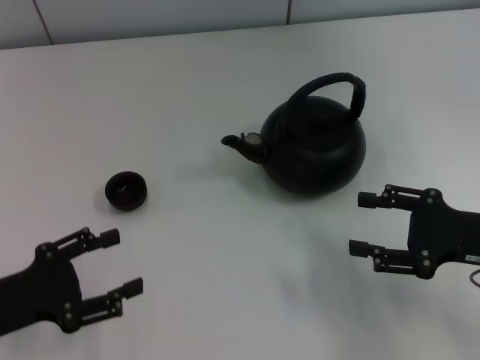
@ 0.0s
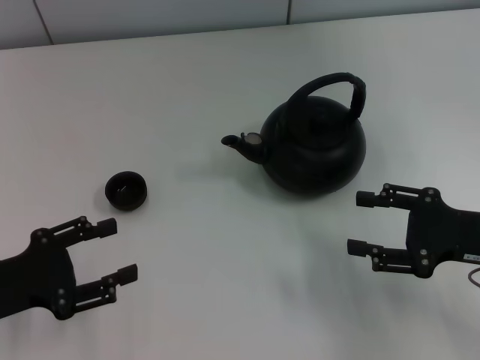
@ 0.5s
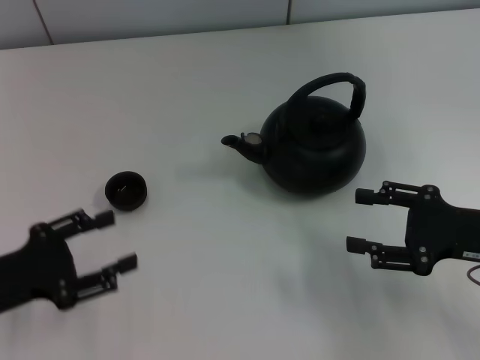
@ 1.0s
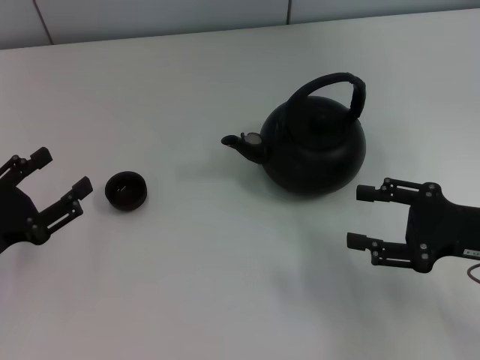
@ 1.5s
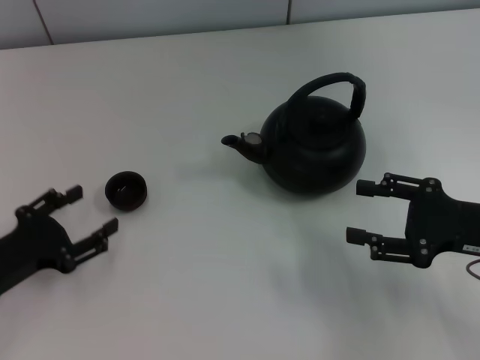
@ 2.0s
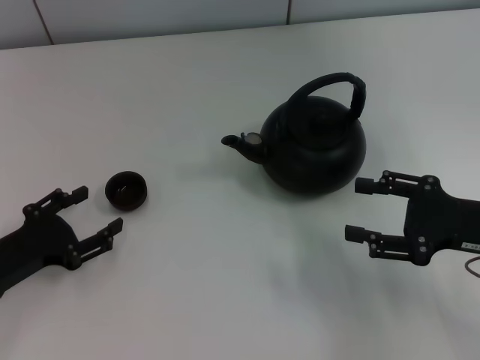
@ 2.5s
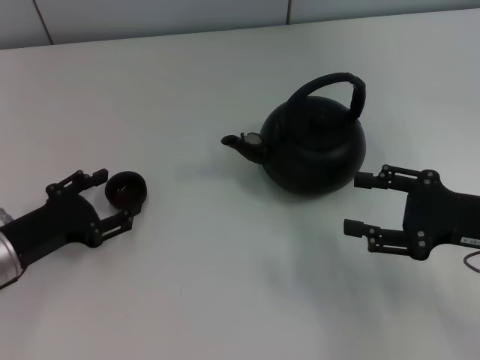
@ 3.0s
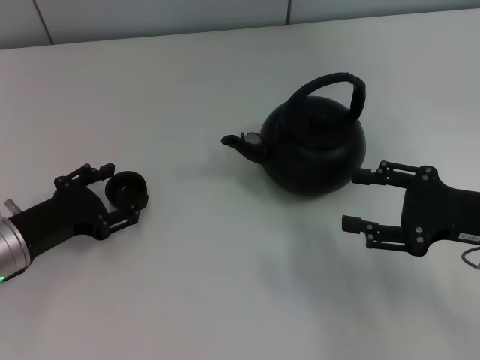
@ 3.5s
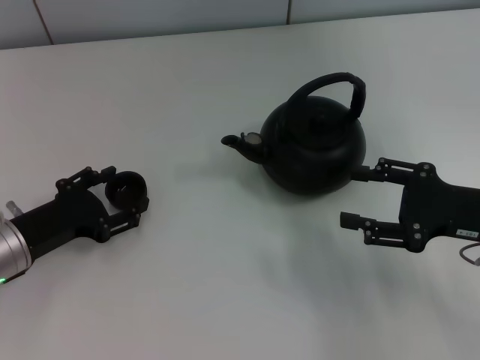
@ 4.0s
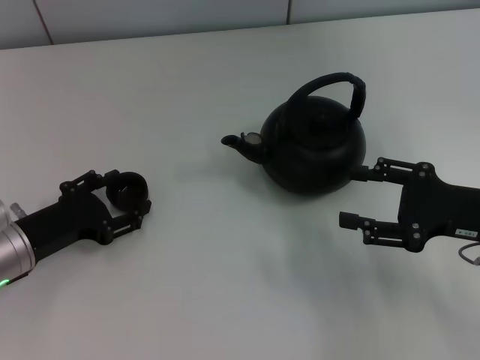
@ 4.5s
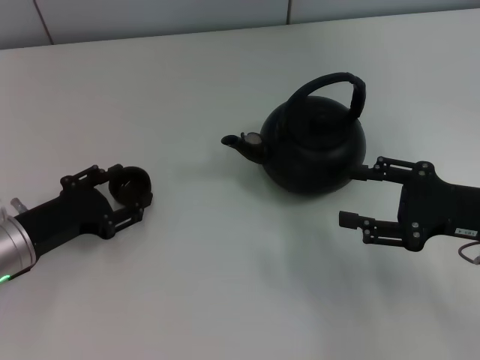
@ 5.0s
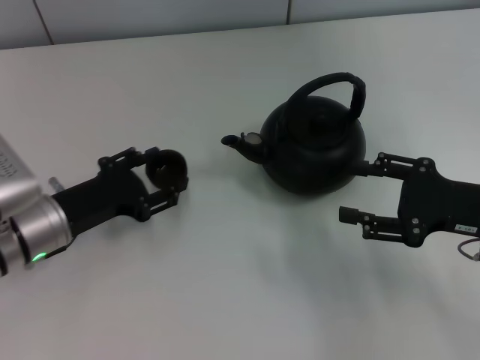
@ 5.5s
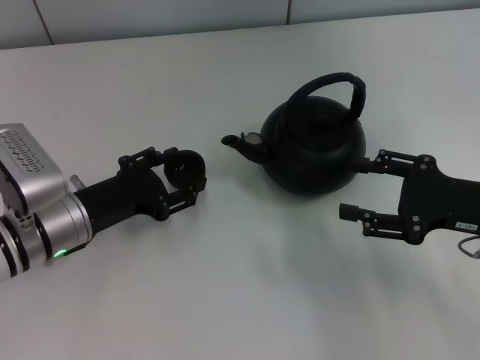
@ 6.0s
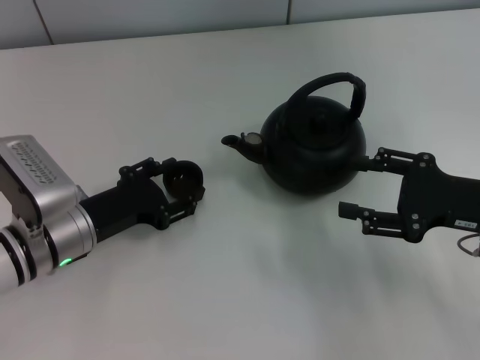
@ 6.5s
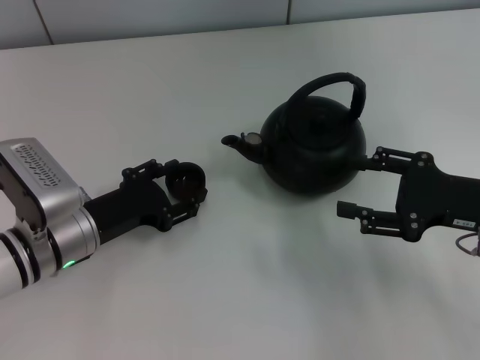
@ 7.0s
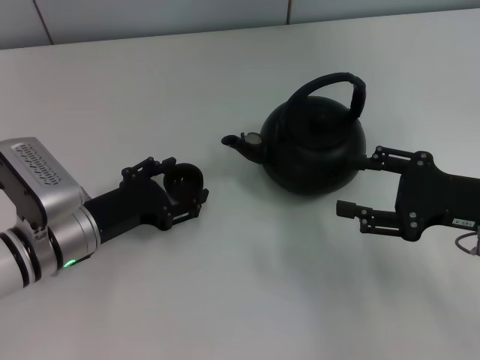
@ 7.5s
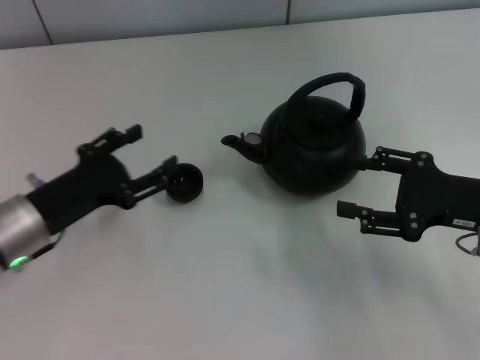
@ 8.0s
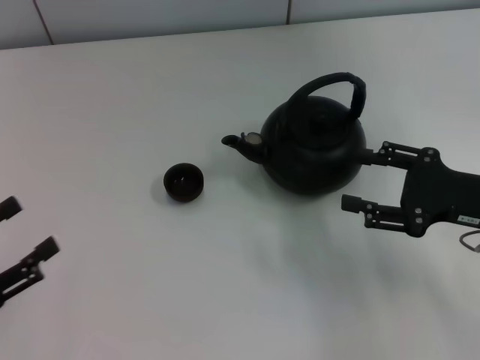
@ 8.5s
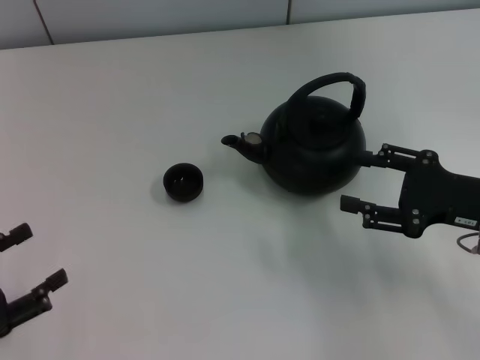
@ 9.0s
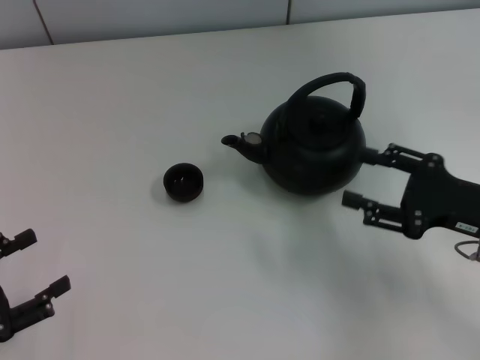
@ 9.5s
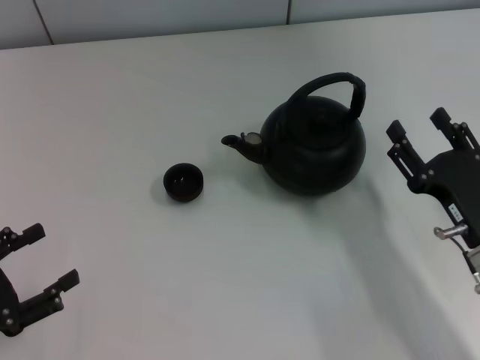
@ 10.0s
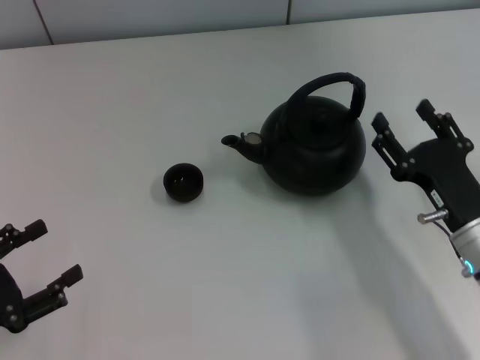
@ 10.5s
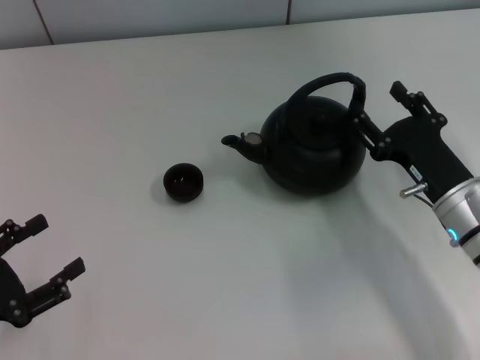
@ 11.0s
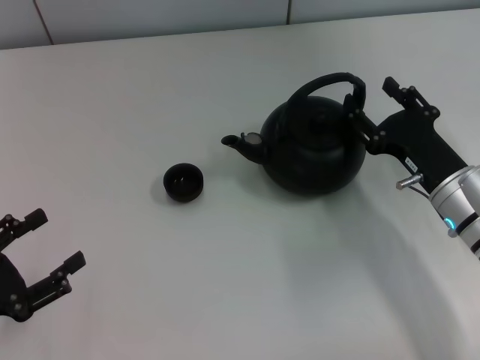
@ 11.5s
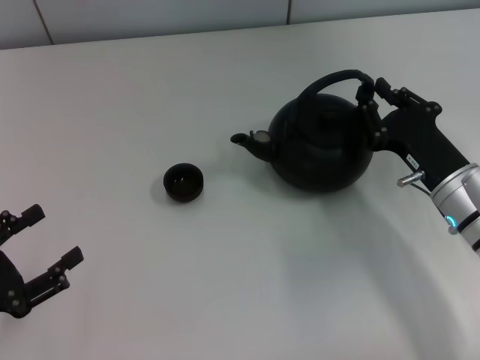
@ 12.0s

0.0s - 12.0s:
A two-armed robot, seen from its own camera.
Task of the whole recording: Grasp the handle of the teapot with one hand and pour tea into the teacup.
Step, 0.0s - 5.0s: Pick up the teacup with the left gripper.
Step, 5.5s - 8.0s: Place the teacup in the center of view with the left gripper.
2.0s - 4.0s: The left gripper moves some 5 cm.
4.0s - 6.0s: The left gripper travels to the right by roughly 5 cm.
6.0s - 8.0s: The grippers move only a little.
8.0s - 10.0s: The left gripper is displaced to the left and backward by approximately 15 cm. The right gripper shifts some 5 cm downward.
10.0s - 12.0s: The right gripper is displaced forward by about 5 cm.

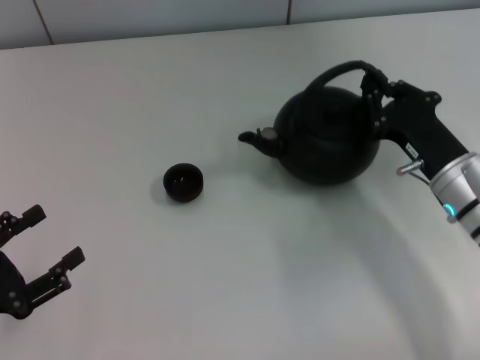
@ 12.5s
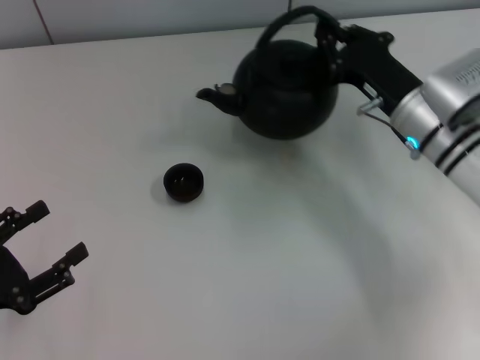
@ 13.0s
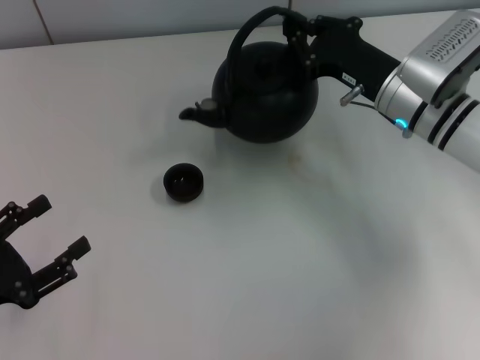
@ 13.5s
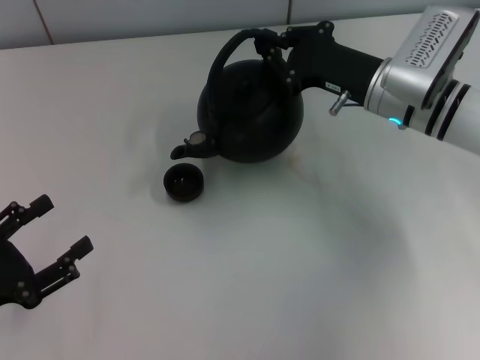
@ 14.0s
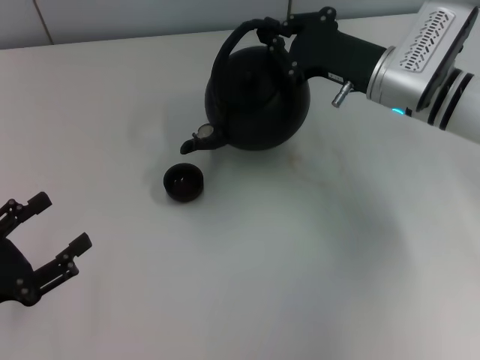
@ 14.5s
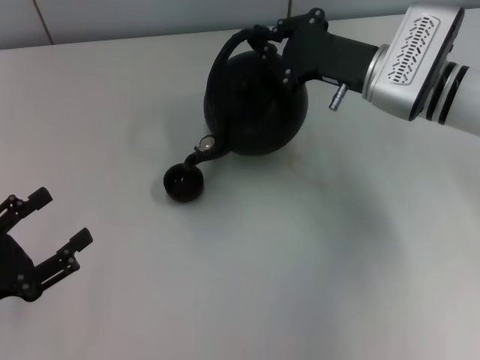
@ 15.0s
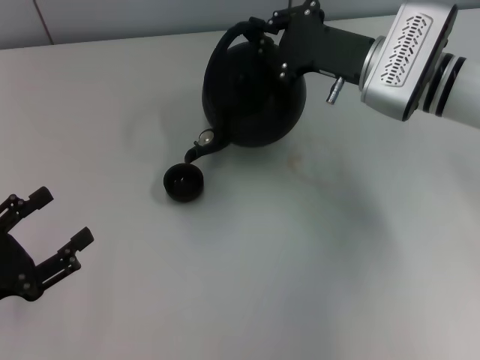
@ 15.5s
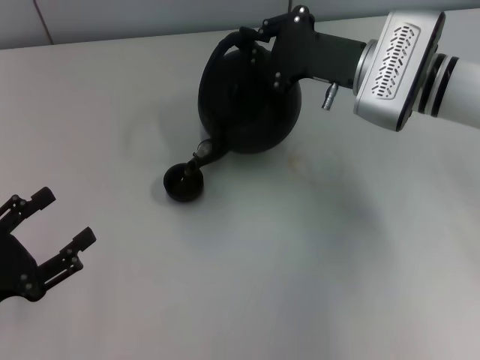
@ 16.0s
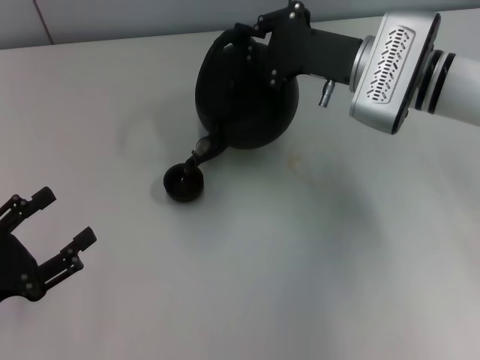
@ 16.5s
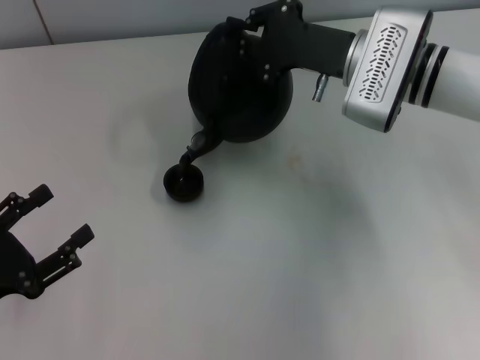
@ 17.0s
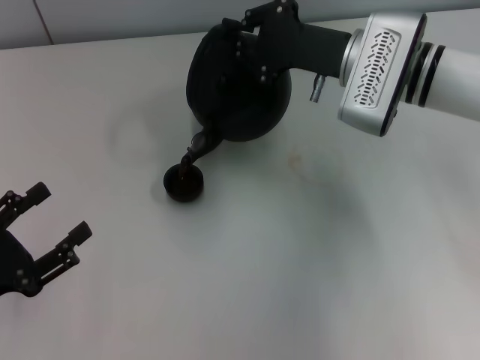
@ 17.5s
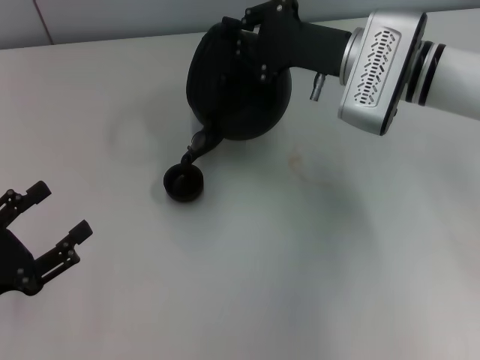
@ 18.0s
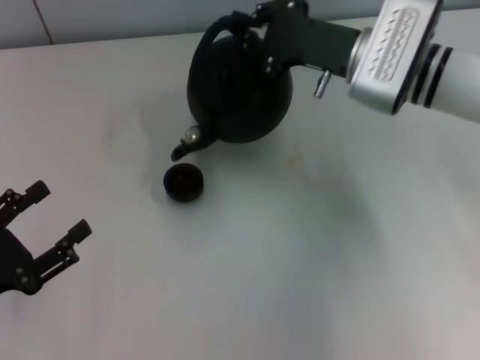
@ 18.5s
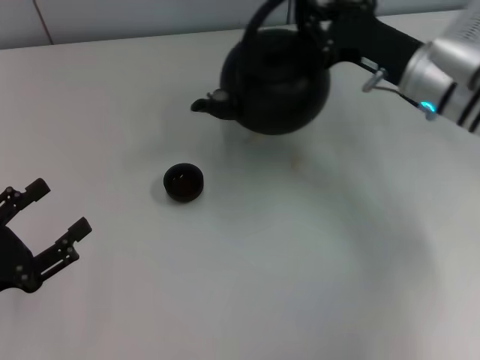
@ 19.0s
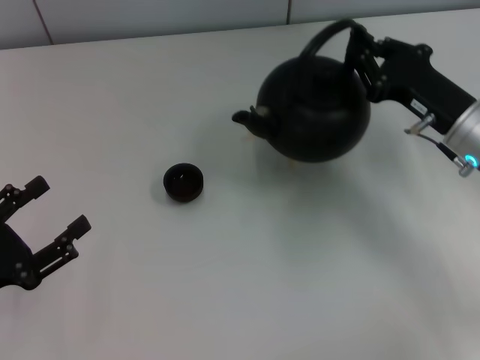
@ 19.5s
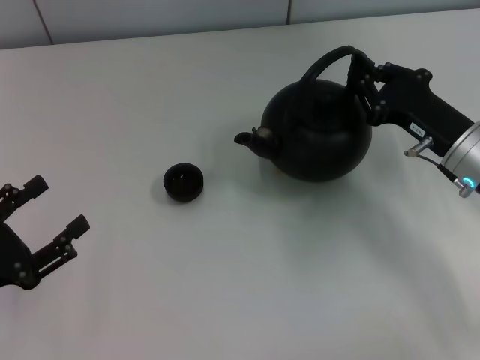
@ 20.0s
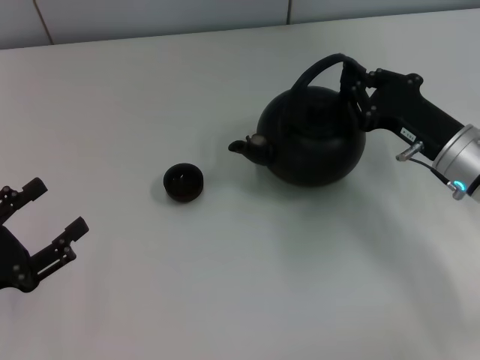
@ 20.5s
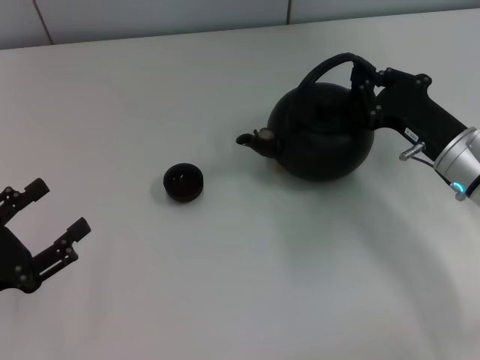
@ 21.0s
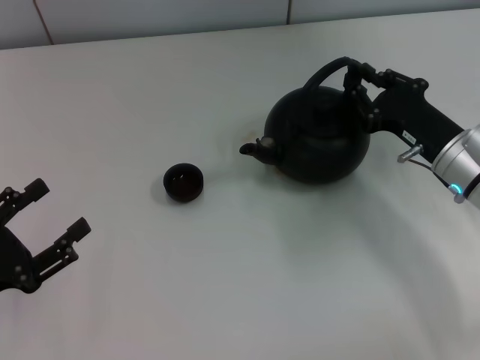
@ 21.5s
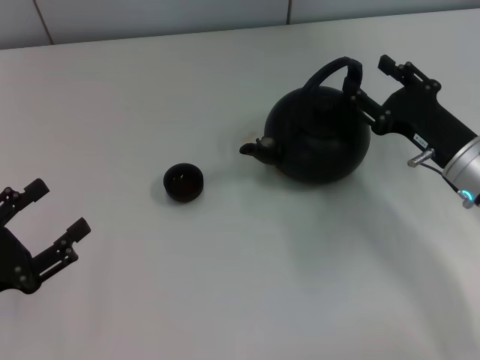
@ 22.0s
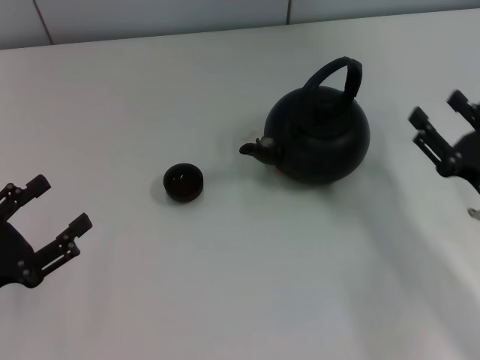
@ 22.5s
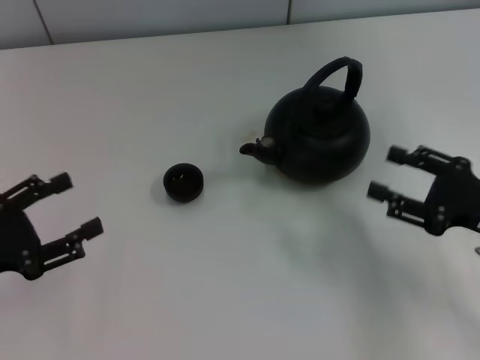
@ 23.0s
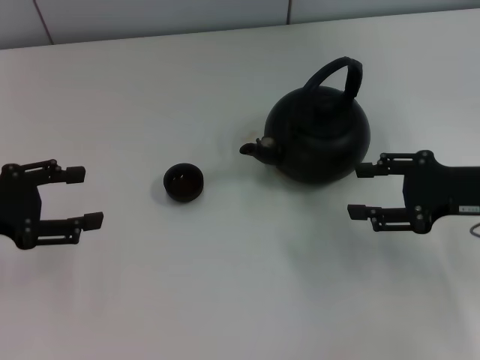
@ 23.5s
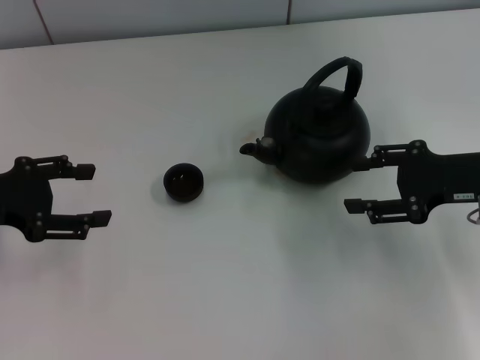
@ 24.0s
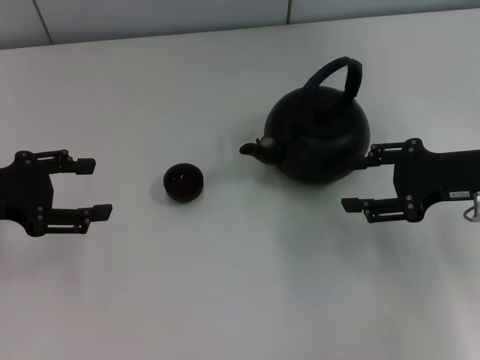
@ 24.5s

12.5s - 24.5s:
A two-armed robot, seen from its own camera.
Task of the whole recording: Grasp the handle of the teapot with one hand and pour tea into the teacup.
Step, 19.0s - 22.0s: Put down the teapot with the right gripper.
12.5s - 14.5s: The right gripper heads forward and upward, covering approximately 15 cm.
16.5s - 18.5s: The grippers make only small movements.
18.5s - 20.5s: The right gripper moves backward, to the right and downward, approximately 15 cm.
20.5s - 22.5s: The right gripper shifts some 10 cm backward, and opens.
22.5s - 24.5s: The two grippers go some 10 cm forward and upward.
